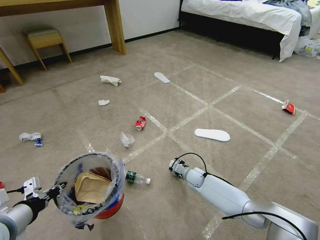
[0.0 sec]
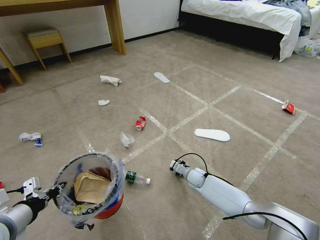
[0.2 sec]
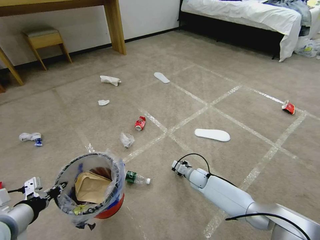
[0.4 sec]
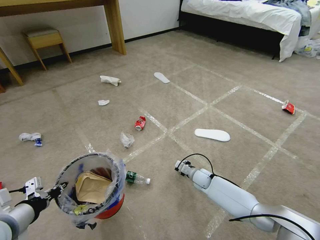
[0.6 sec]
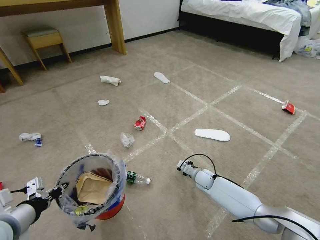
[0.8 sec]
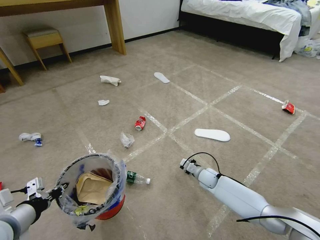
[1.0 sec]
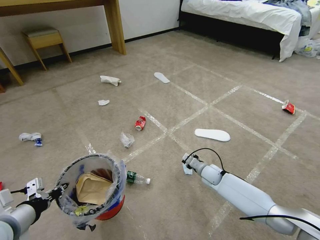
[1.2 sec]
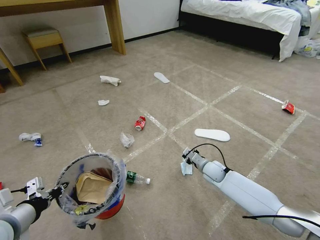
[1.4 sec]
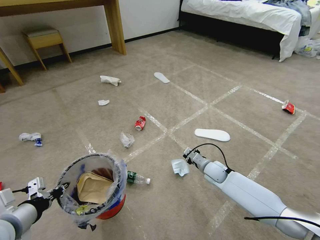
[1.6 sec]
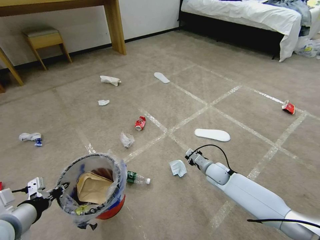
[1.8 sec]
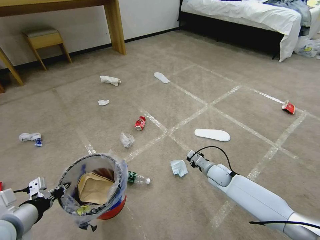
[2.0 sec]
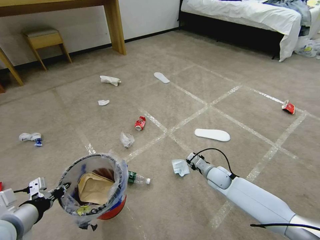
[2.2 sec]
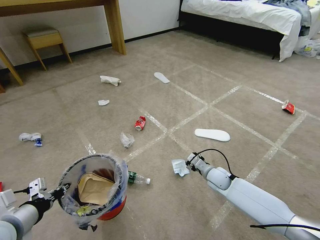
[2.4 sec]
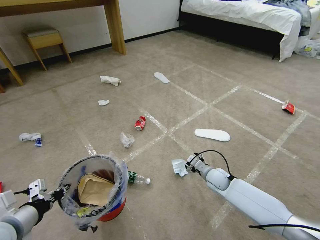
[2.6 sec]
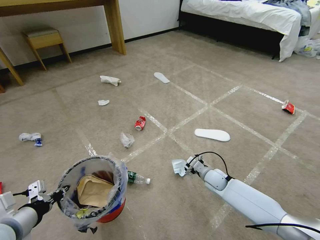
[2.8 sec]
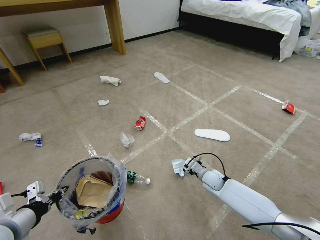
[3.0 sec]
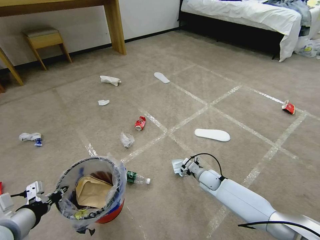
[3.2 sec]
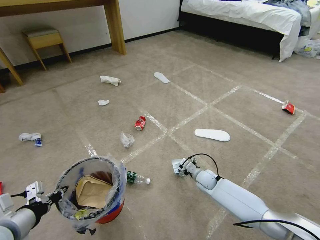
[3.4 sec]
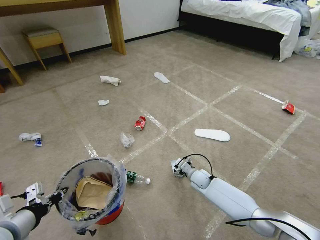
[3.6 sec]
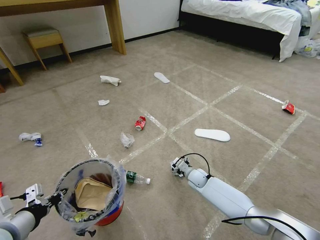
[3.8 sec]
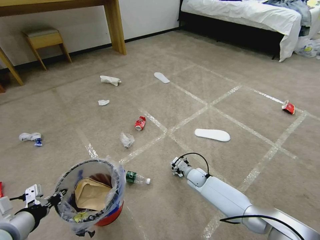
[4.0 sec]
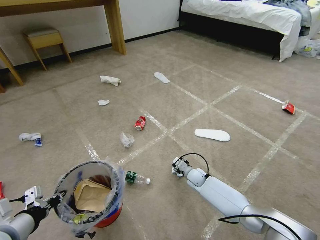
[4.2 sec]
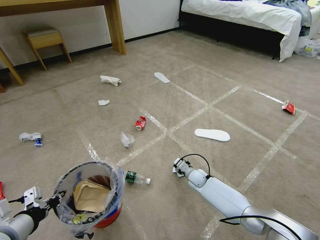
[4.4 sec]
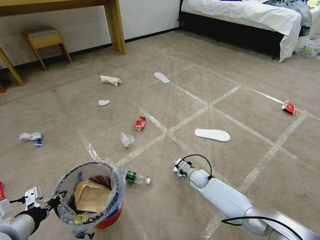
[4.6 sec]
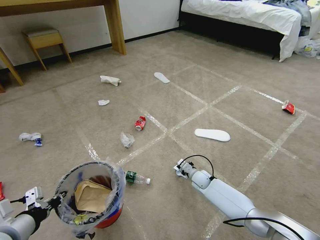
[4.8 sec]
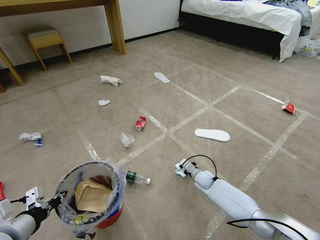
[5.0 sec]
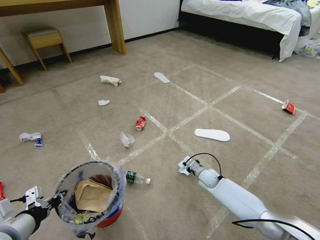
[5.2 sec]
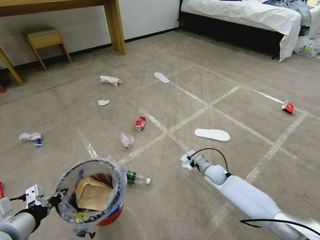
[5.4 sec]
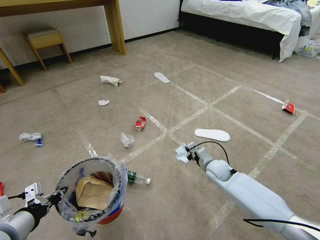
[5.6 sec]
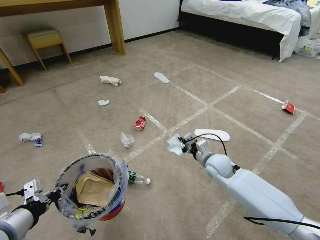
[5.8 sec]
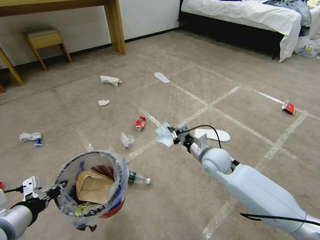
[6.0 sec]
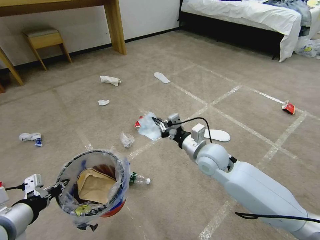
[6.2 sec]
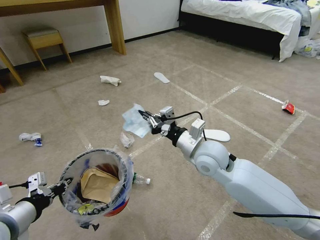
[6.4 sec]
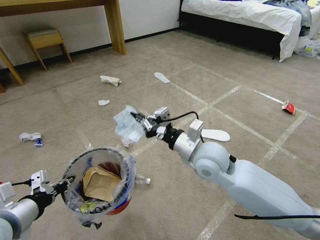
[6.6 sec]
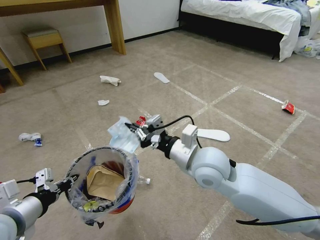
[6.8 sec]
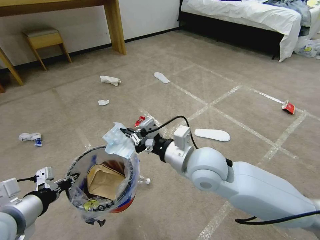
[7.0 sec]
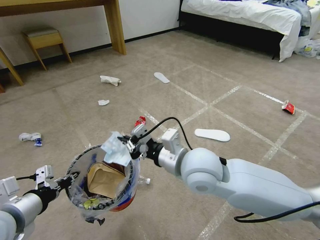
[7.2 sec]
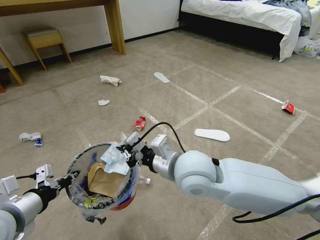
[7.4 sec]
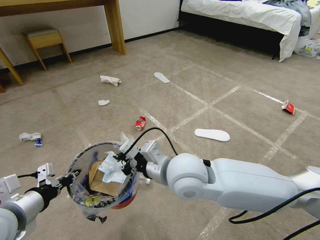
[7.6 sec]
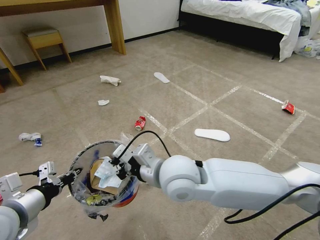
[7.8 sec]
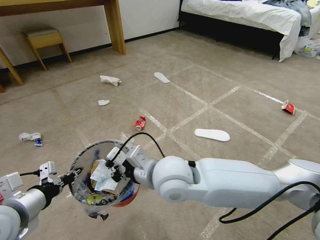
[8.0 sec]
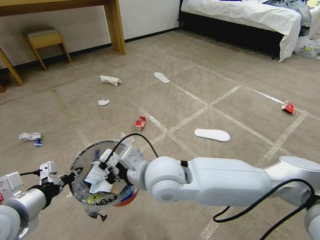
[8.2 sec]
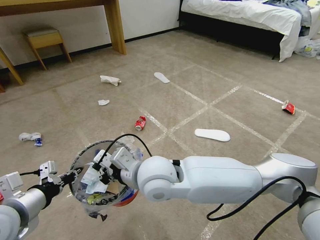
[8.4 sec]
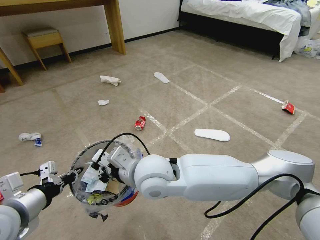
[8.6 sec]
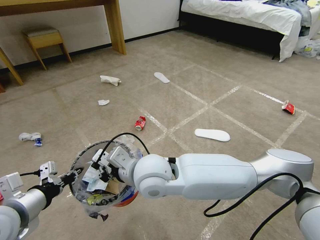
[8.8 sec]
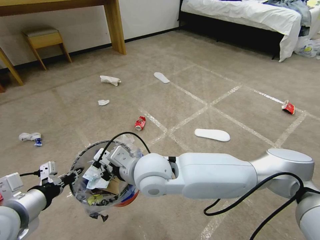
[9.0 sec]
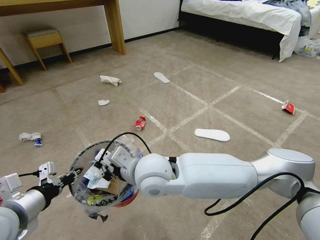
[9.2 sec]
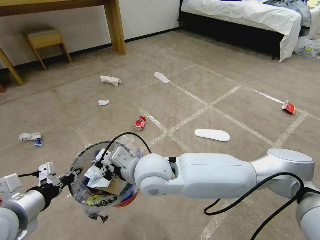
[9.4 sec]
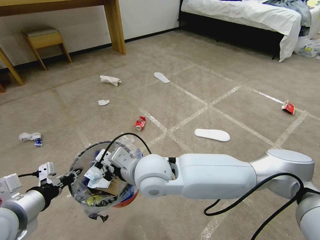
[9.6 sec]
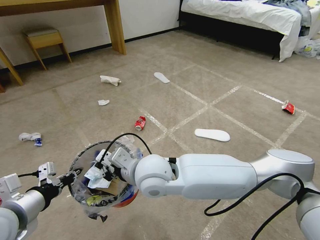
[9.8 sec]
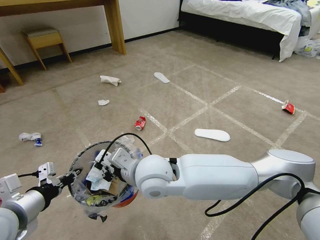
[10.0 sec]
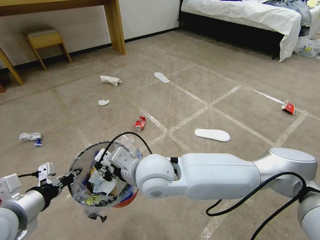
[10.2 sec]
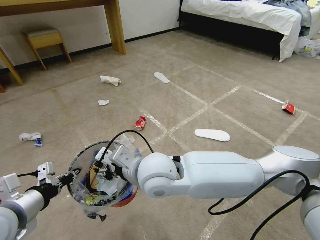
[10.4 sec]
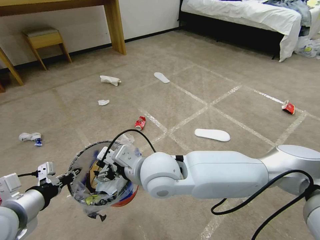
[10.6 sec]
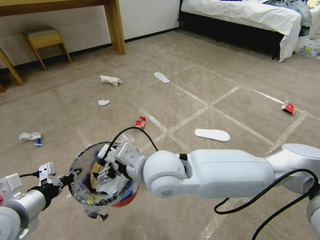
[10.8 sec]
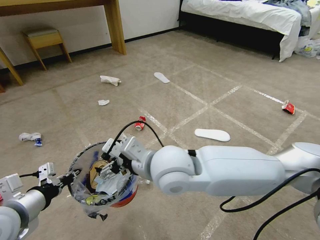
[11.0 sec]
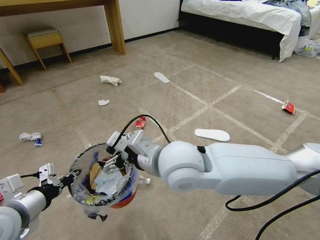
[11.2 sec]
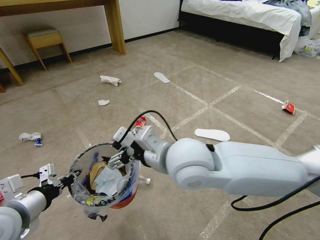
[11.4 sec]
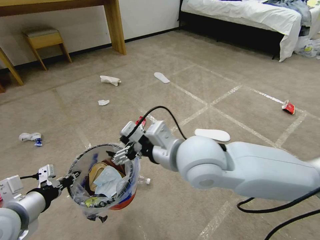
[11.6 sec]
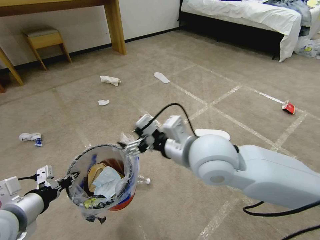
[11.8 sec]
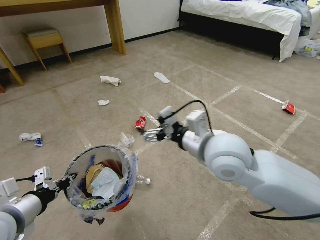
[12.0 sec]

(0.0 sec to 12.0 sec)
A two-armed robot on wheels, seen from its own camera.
Task of the whole recording: Pick up the trash bin and place the garbage on the floor into it.
0.0 sec - 1.6 sec: The right gripper goes about 10 cm upward and to the right, and closes its fingers.
1.6 sec - 3.0 sec: The right gripper opens.
3.0 sec - 4.4 sec: The right gripper is displaced to the left by approximately 5 cm, and closes.
4.4 sec - 6.0 sec: The right gripper is displaced upward by some 25 cm, and closes up.
6.0 sec - 7.6 sec: The right gripper shifts roughly 20 cm to the left, upward and backward.
7.6 sec - 9.0 sec: The right gripper travels to the left by roughly 10 cm.
9.0 sec - 10.4 sec: The right gripper opens.
10.4 sec - 12.0 sec: The right gripper moves to the right, approximately 15 cm, and opens its fingers.

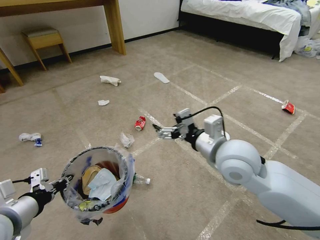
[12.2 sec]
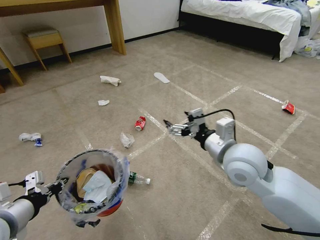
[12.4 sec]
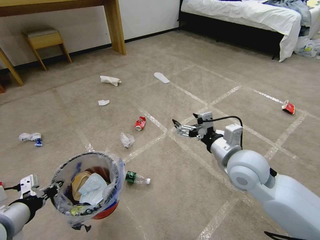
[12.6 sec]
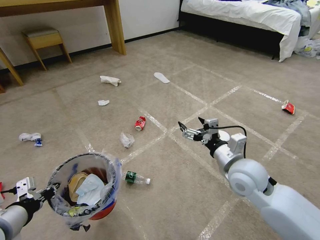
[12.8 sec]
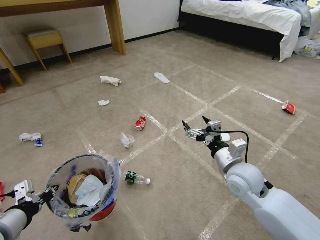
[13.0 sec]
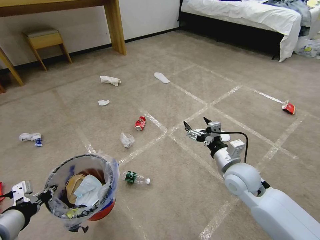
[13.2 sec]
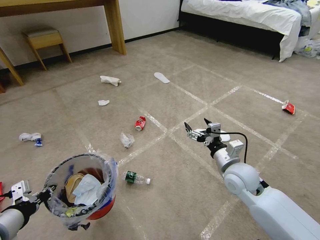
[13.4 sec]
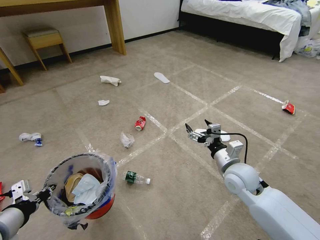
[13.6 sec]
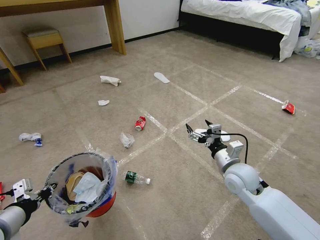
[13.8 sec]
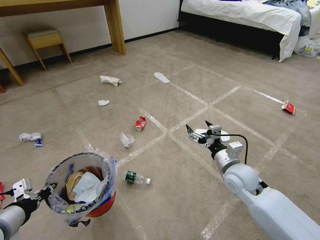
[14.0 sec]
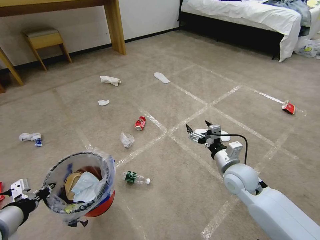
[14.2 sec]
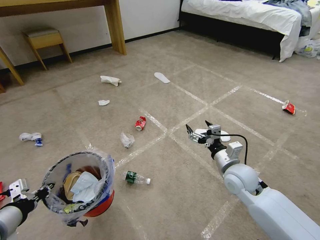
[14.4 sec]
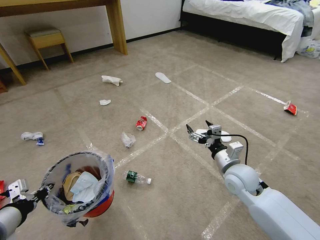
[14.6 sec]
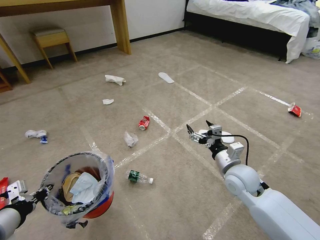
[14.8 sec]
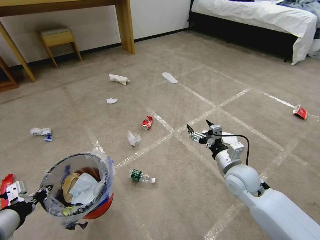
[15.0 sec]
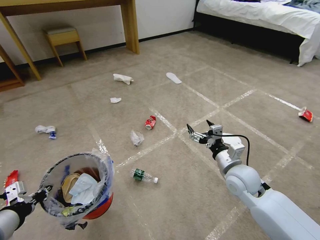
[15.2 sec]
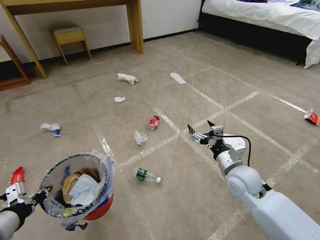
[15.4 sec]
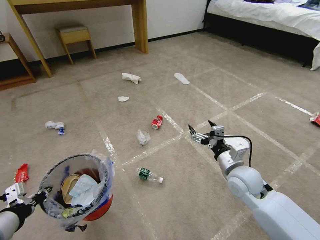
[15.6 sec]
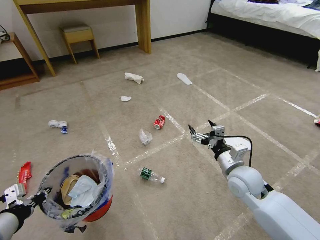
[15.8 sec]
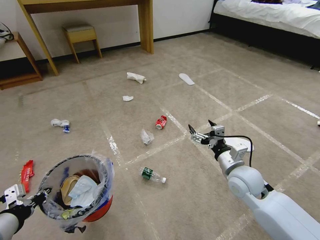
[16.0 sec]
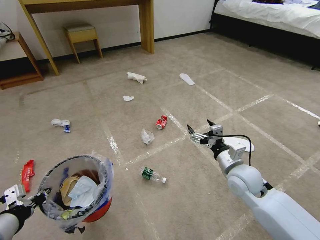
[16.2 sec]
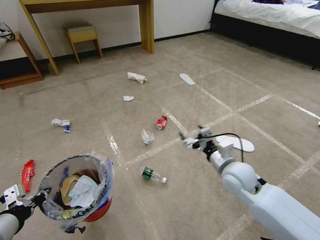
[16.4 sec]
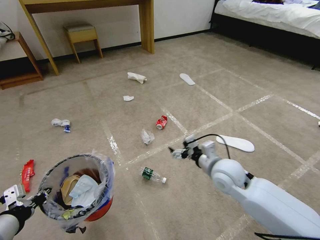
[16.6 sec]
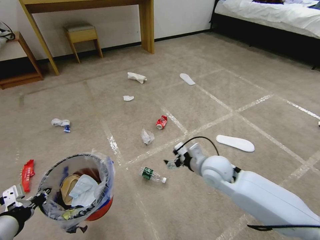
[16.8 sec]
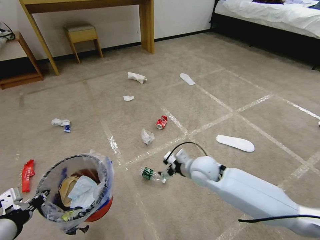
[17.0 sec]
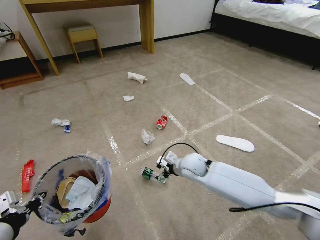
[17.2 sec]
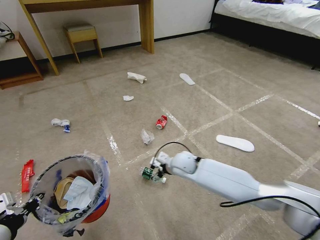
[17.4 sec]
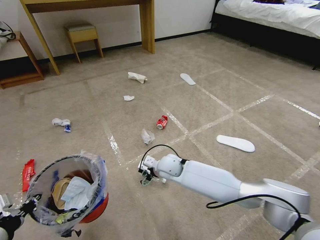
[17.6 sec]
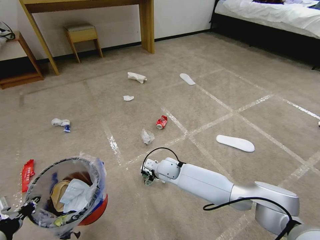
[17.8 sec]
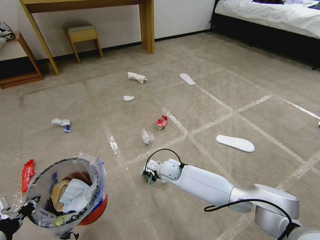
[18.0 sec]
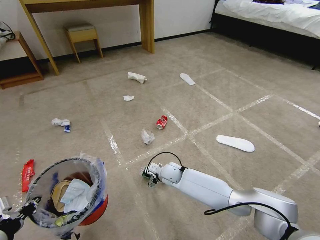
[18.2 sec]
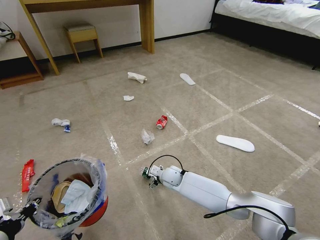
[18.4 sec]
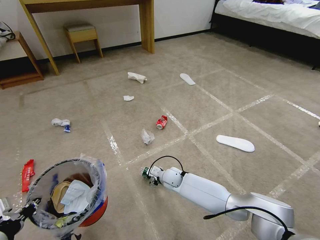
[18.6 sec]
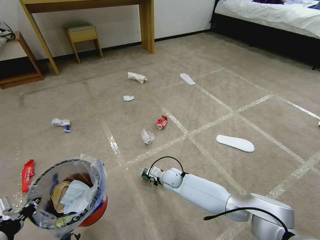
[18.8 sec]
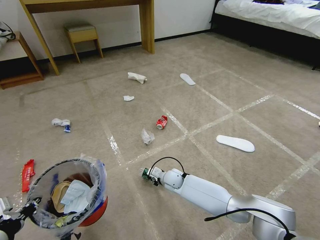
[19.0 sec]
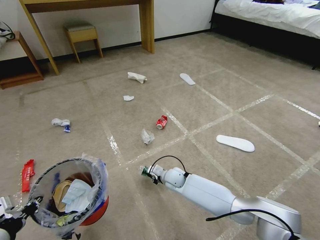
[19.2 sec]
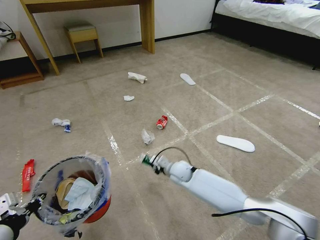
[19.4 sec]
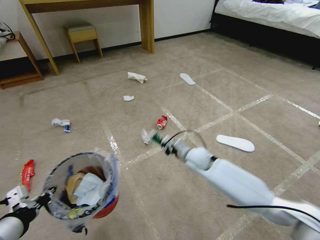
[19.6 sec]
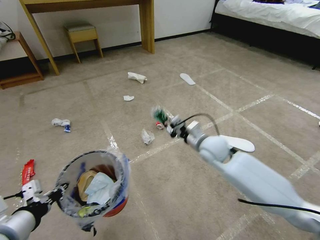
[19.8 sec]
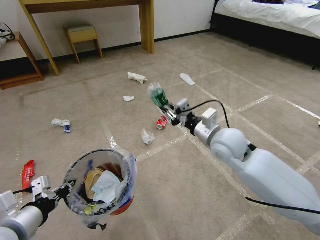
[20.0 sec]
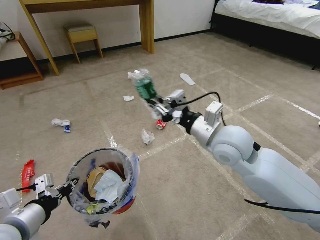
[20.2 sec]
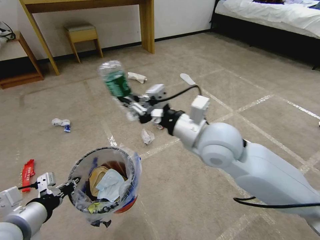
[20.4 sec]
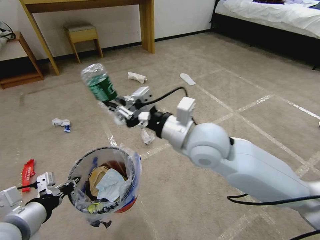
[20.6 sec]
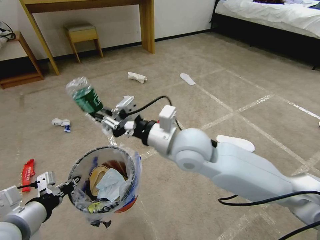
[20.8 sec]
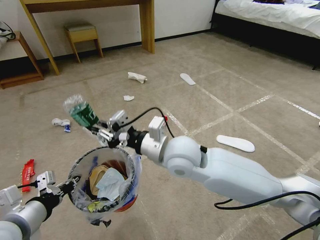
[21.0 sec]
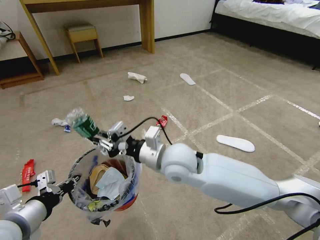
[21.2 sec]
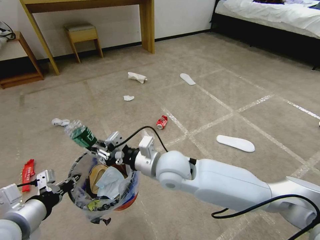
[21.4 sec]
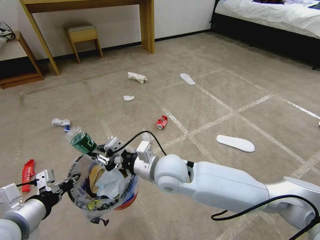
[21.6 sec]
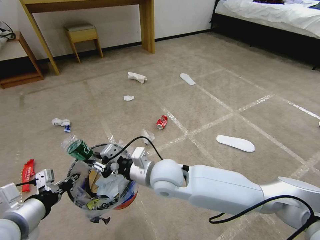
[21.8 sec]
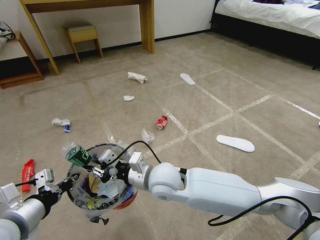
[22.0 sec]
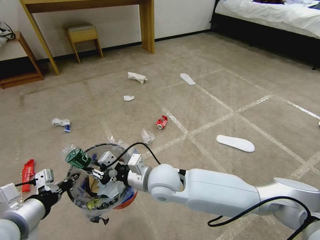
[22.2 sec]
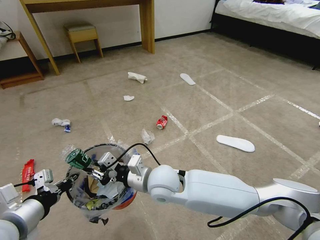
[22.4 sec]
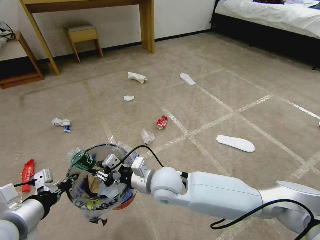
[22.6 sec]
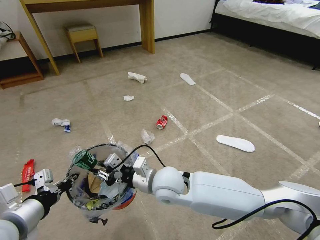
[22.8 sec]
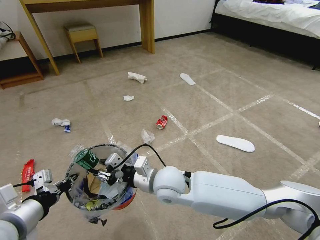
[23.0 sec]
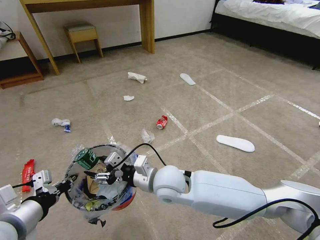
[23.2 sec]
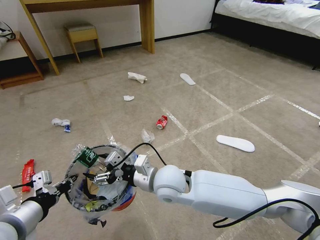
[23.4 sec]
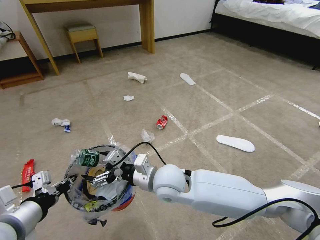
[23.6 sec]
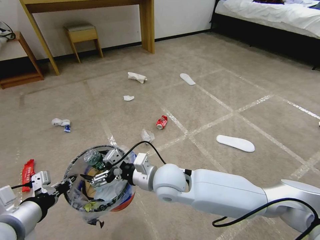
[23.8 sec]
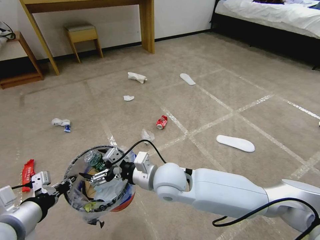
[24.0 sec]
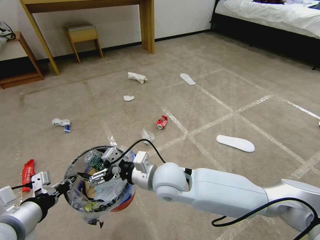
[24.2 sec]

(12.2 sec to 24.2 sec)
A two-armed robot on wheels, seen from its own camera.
Task of the whole recording: Pick up the trash bin and place the garbage on the floor into it.
12.2 sec - 13.8 sec: The right gripper goes roughly 15 cm downward and to the right.
15.2 sec - 16.6 sec: The right gripper moves some 5 cm.
16.6 sec - 18.2 sec: The right gripper heads downward, to the left and forward, covering approximately 25 cm.
18.2 sec - 19.8 sec: The right gripper goes roughly 25 cm upward and to the right, and closes up.
19.8 sec - 21.2 sec: The right gripper heads to the left, backward and upward, covering about 20 cm.
21.2 sec - 22.6 sec: The right gripper goes roughly 10 cm downward.
22.6 sec - 24.2 sec: The right gripper opens.
